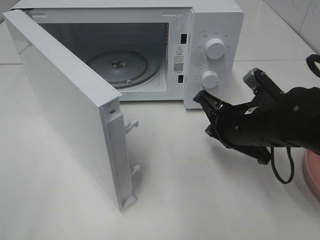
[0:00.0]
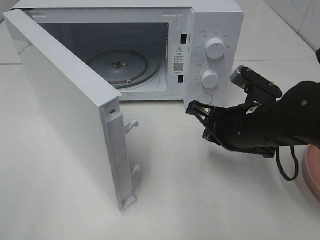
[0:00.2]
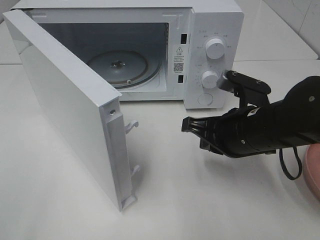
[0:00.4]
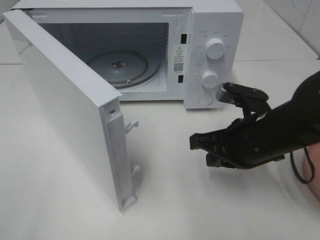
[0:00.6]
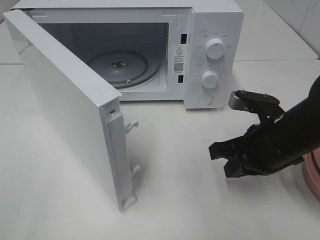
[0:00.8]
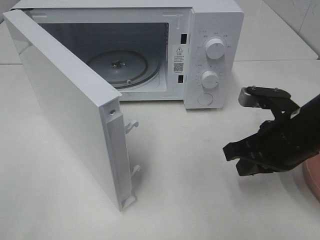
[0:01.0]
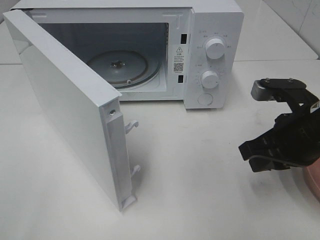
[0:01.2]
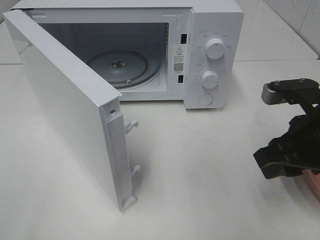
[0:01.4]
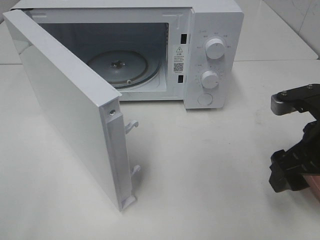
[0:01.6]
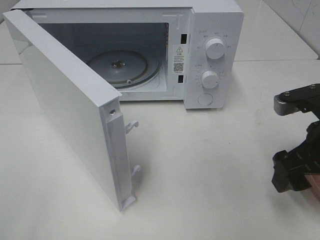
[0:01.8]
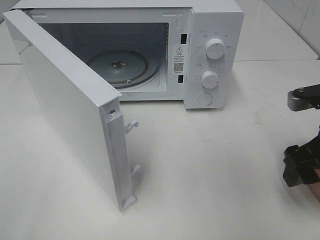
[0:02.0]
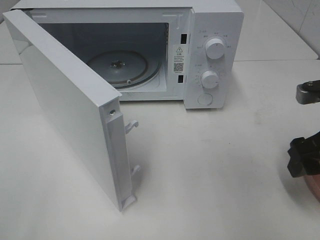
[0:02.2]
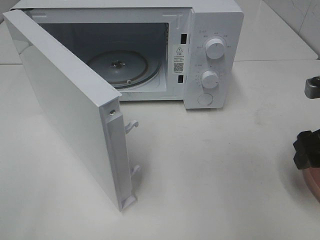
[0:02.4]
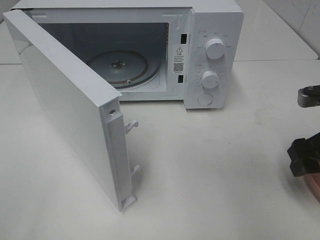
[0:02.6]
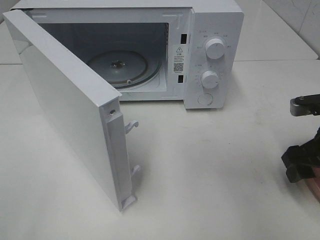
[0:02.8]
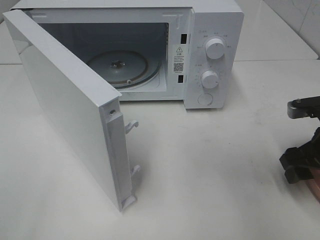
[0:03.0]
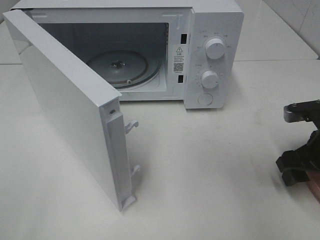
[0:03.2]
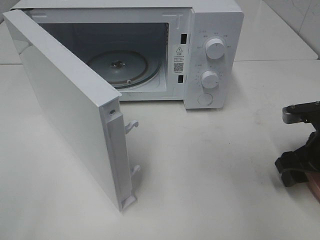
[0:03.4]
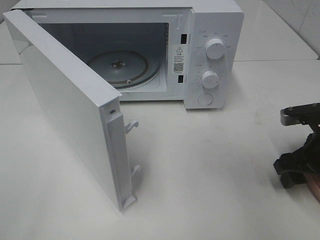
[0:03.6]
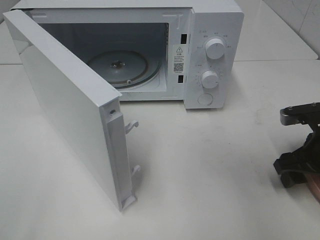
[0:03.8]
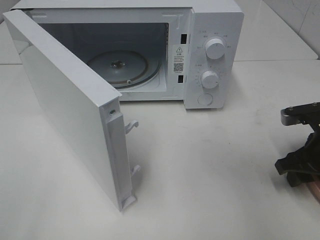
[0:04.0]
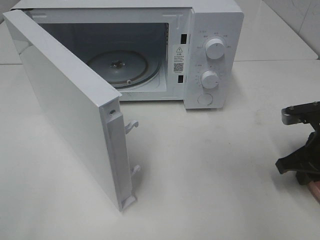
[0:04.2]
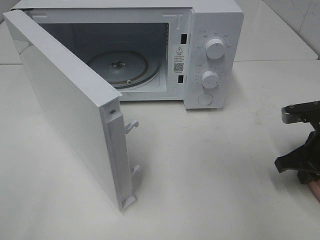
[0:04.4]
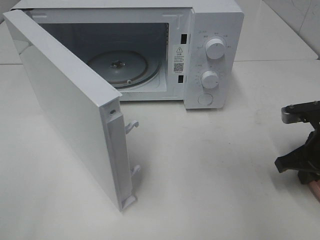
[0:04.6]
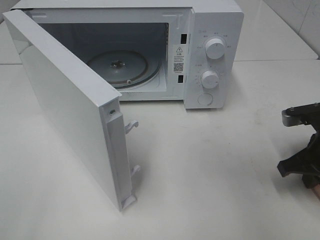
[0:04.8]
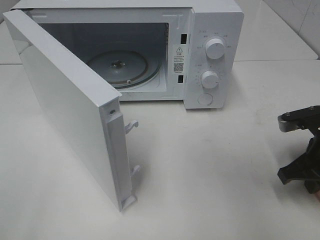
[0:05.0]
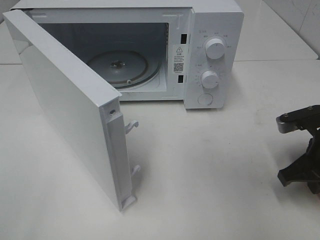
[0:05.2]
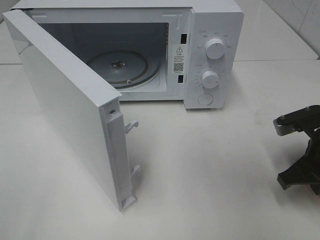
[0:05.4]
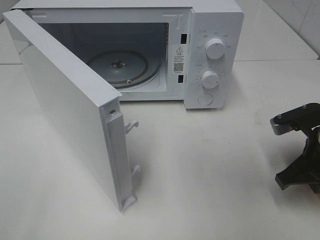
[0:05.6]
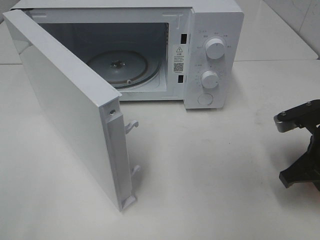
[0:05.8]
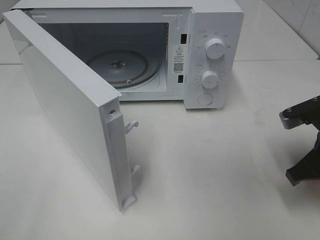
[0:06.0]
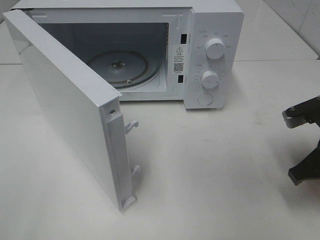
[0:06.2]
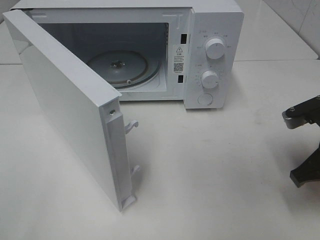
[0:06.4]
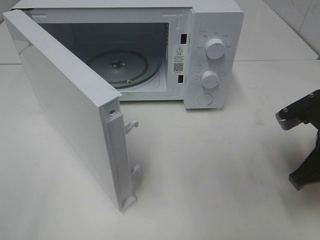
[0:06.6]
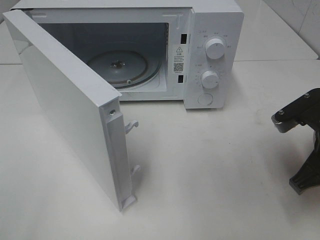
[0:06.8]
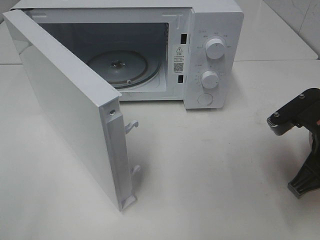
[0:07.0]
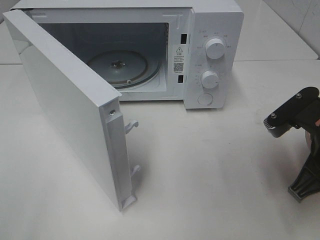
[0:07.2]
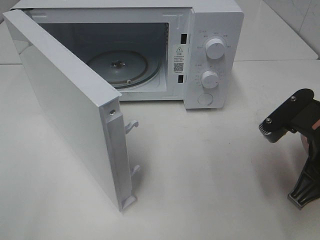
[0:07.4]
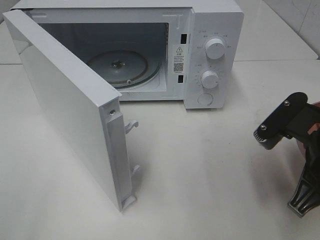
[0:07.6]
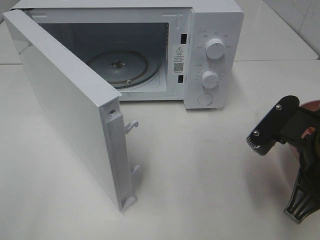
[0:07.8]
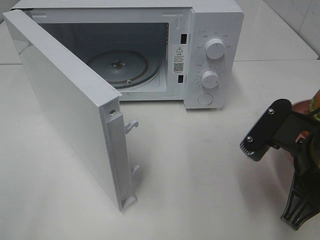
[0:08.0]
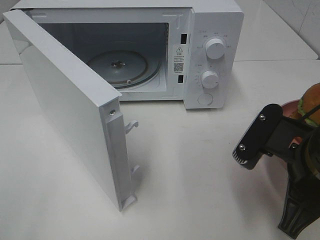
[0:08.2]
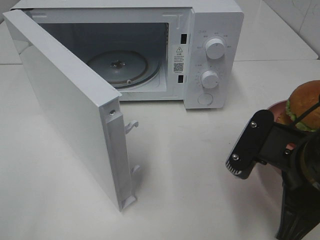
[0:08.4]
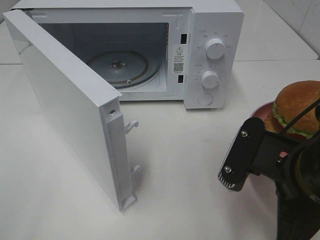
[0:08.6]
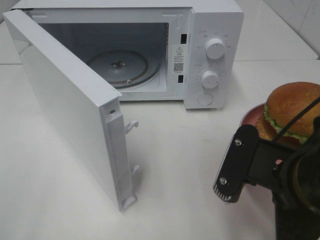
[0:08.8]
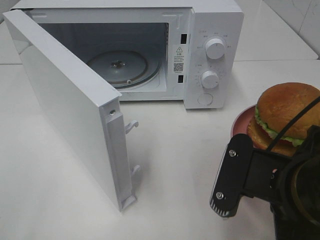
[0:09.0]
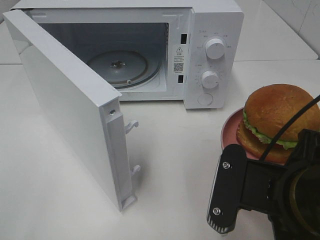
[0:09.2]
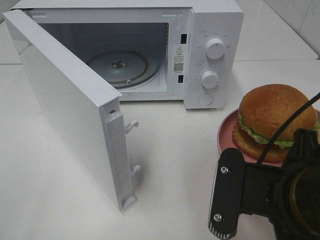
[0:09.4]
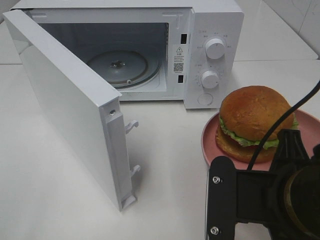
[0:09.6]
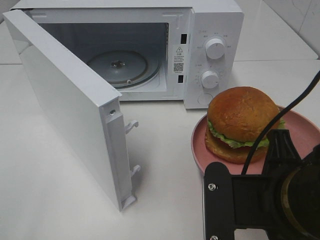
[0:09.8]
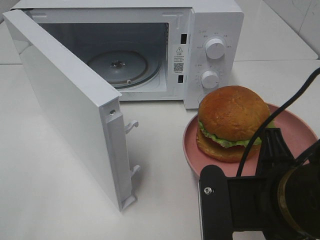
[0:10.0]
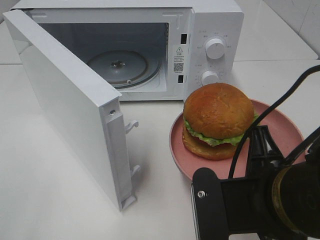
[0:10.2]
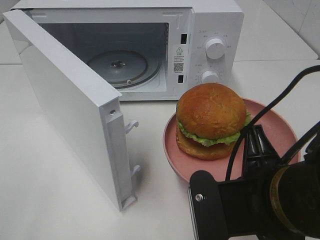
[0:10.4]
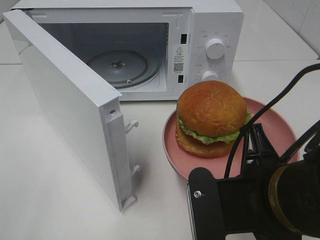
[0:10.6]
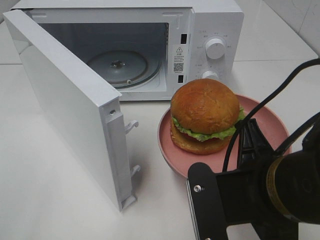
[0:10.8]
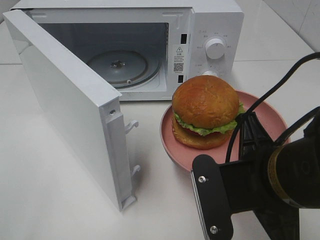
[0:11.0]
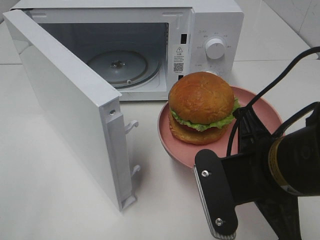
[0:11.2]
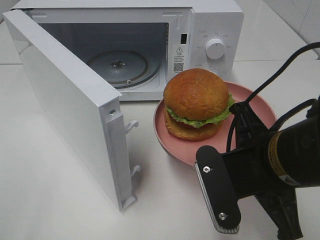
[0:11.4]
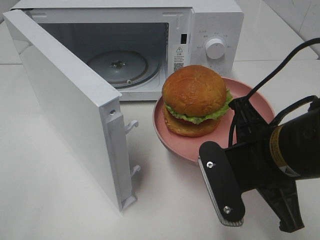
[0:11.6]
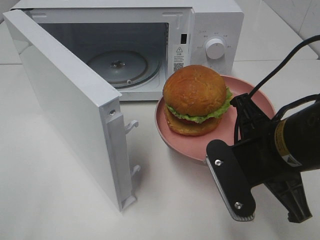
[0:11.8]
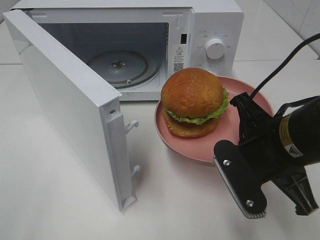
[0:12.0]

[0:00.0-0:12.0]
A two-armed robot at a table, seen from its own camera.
Task of the whole recording: Heat the burger.
Step, 0:00.0 to 0:04.8: Right hand: grab the plate with the hamburger.
0:00.0 to 0:01.6: The right gripper heads to the right and backward, covering approximately 10 cm, and opens its fingers.
0:01.6 to 0:03.0: The right gripper heads downward and to the right, covering some 5 cm.
0:03.0 to 0:04.4: The right gripper closes its fingers.
0:04.4 to 0:06.0: The right gripper moves roughly 5 cm.
0:06.0 to 0:07.6: The right gripper moves to the left and backward, about 10 cm.
0:07.6 to 0:09.0: The right gripper shifts some 10 cm to the left and backward.
0:10.4 to 0:12.0: The right gripper moves forward, roughly 5 cm.

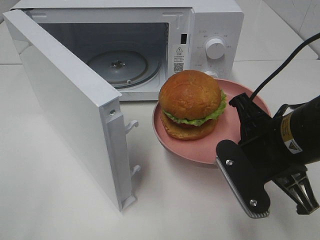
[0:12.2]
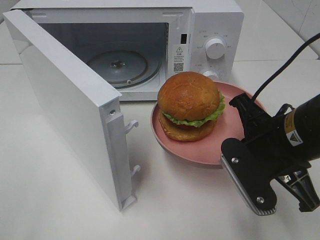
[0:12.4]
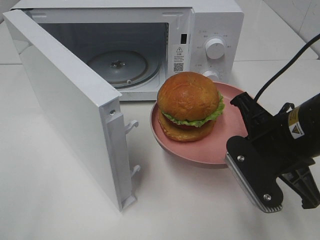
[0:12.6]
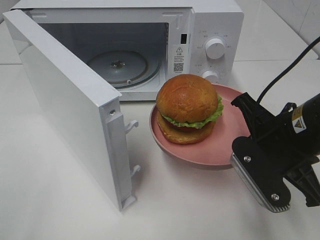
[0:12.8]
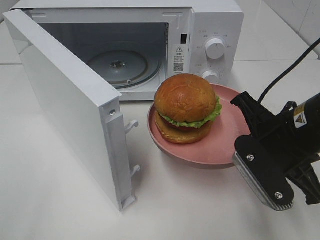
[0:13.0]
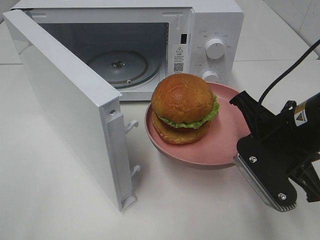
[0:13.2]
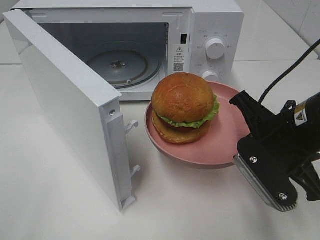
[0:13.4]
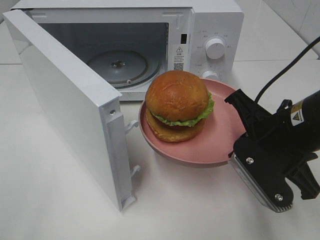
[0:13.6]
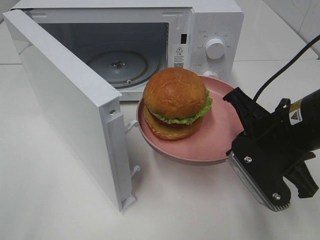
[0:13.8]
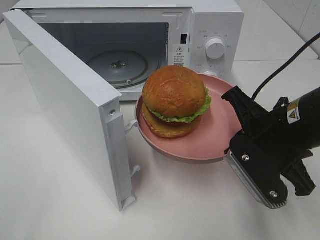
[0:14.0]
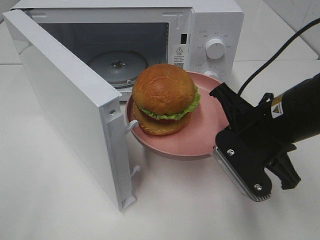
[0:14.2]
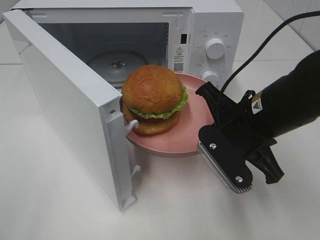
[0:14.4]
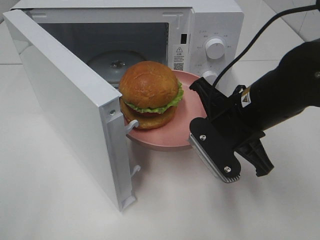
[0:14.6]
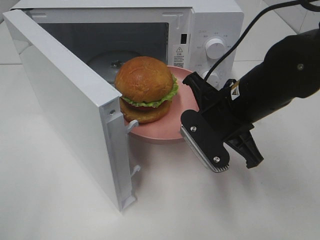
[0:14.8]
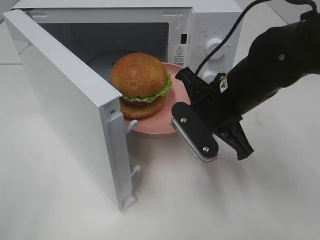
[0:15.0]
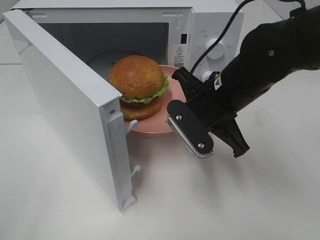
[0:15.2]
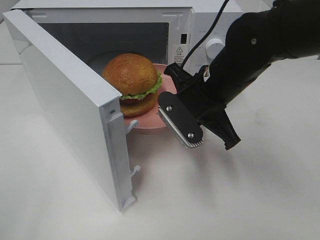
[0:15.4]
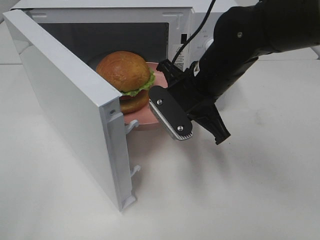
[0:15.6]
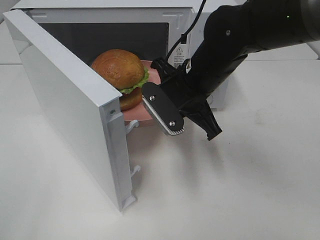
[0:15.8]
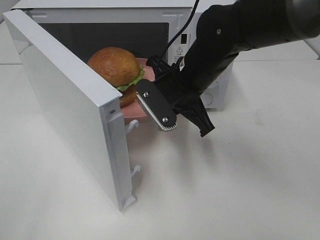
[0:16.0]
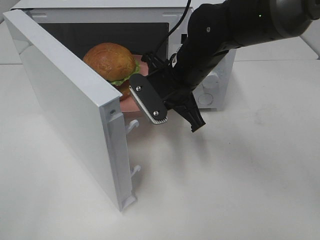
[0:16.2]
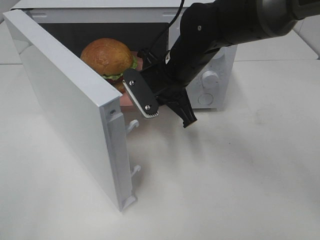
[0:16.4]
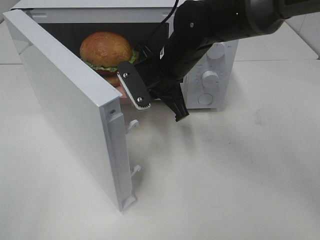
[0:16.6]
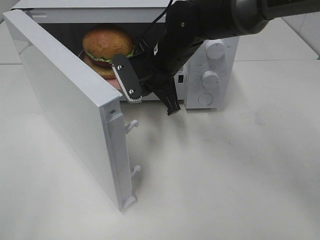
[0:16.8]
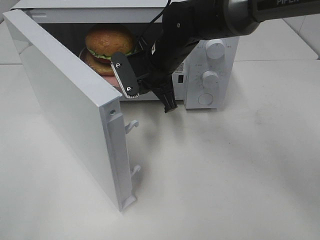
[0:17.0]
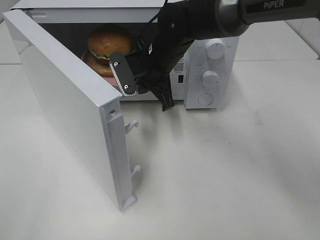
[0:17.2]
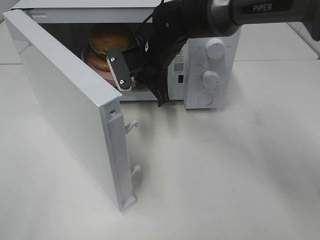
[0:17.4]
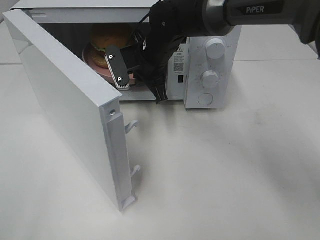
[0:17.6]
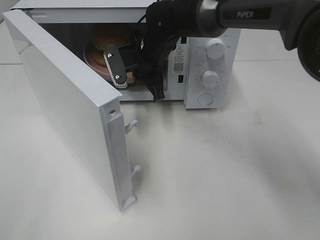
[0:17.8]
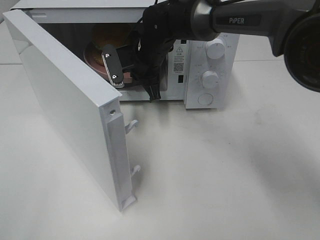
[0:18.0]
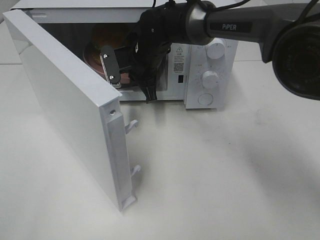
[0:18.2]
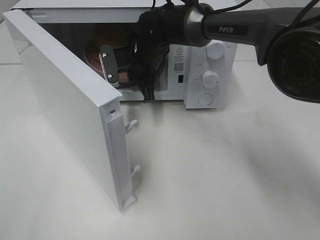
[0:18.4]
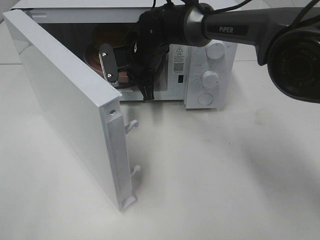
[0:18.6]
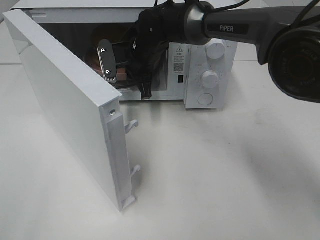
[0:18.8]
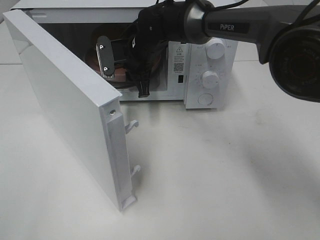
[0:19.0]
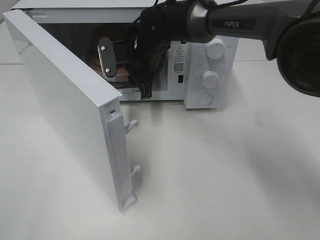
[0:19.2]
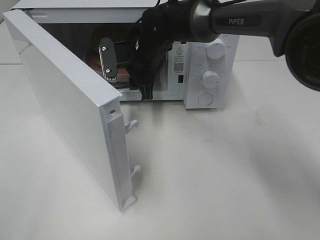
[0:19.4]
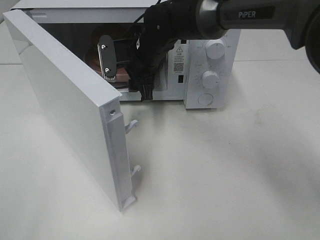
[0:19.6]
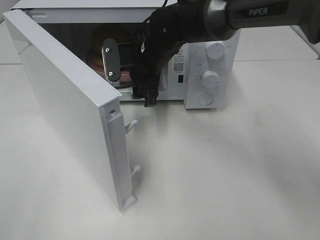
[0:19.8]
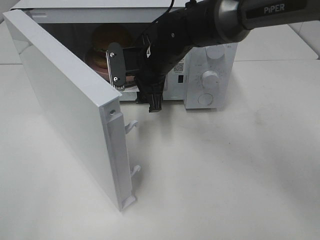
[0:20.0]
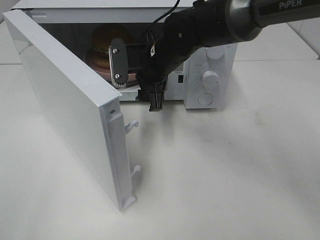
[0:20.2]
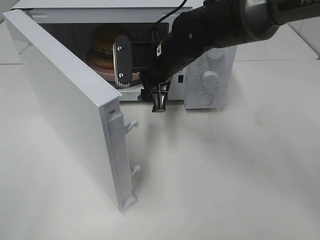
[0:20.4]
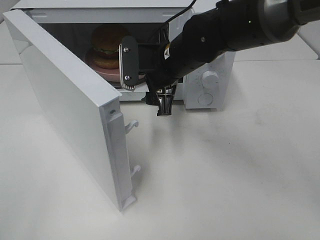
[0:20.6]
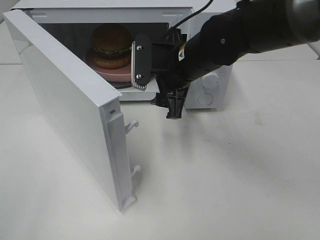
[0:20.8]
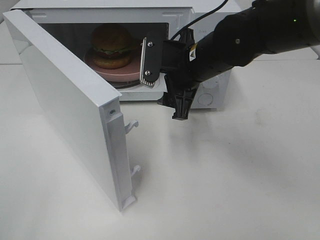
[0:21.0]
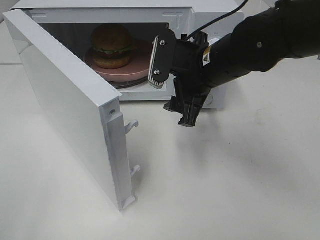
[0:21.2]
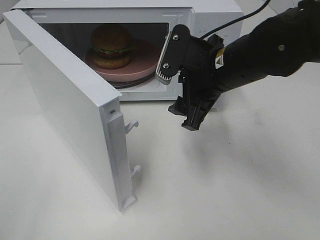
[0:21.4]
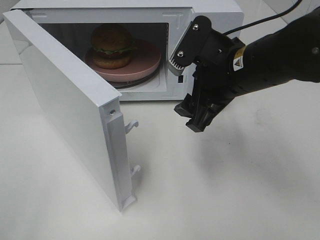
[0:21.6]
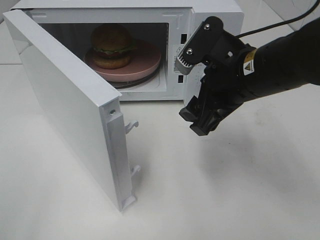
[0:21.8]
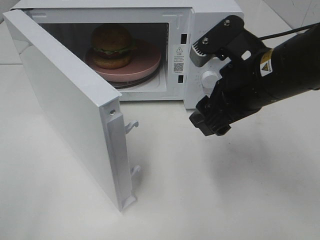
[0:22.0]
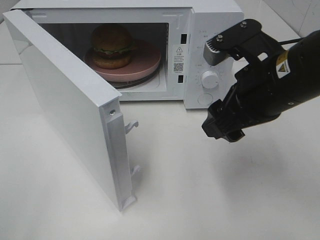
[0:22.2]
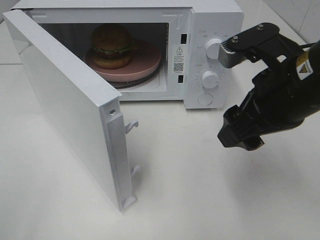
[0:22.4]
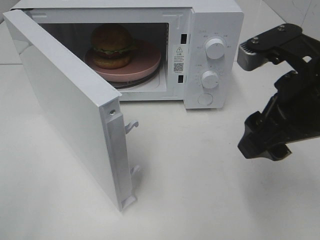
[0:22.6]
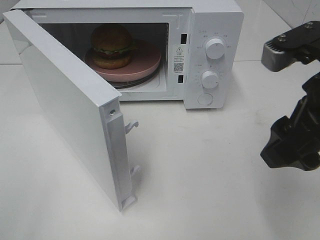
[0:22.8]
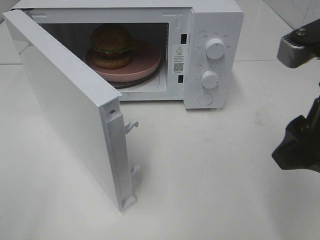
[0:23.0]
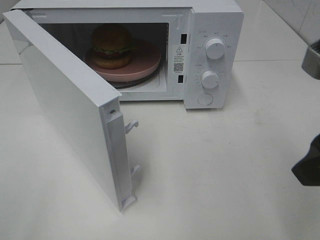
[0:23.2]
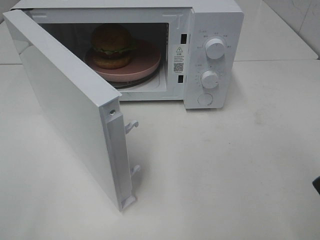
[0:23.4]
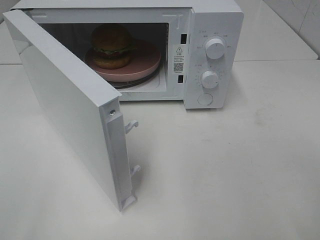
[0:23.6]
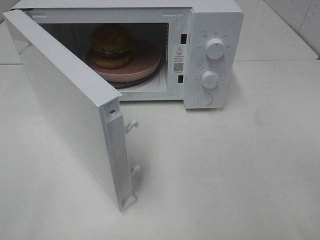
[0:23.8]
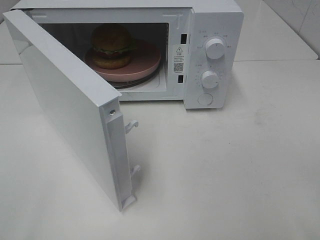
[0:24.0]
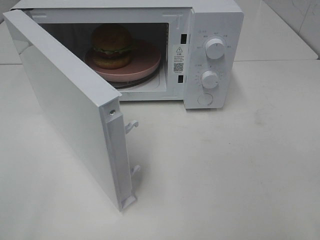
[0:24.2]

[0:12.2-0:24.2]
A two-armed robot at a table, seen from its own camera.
Task of the whole recording: Heat the burger.
Step, 0:12.2 to 0:19.0: Right hand: place the plate in the microwave.
0:12.2 to 0:13.8: The grippers make only small movements.
0:13.8 to 0:15.2: The right gripper is displaced forward and to the left by roughly 10 cm.
0:15.2 to 0:16.6: The right gripper shifts some 10 cm forward and to the left.
0:16.6 to 0:18.2: The right gripper heads forward, covering approximately 10 cm.
0:18.2 to 0:19.8: The right gripper opens.
0:19.8 to 0:21.2: The right gripper shifts about 15 cm backward and to the right.
0:21.2 to 0:22.6: The right gripper heads backward, to the right and upward, covering some 15 cm.
0:22.6 to 0:24.2: The right gripper travels backward and to the right by approximately 15 cm.
